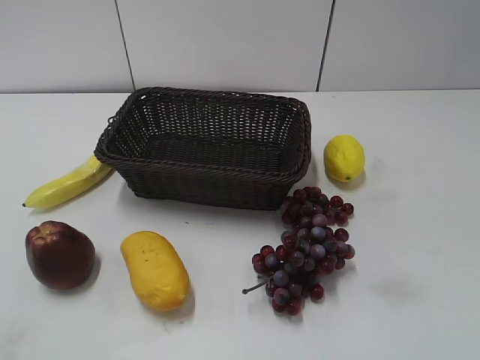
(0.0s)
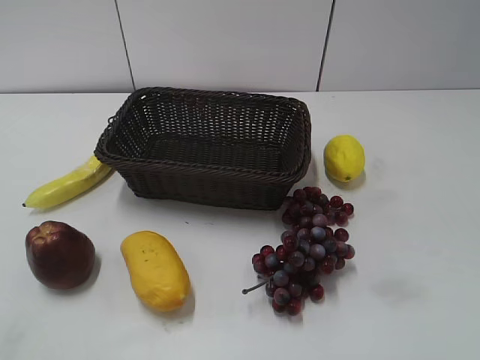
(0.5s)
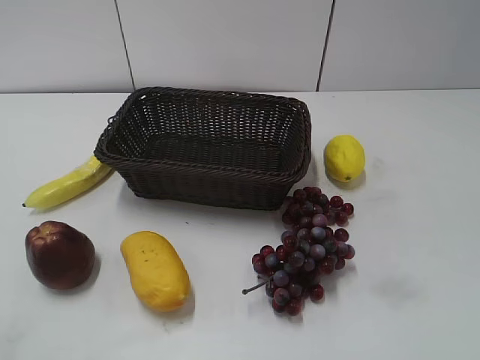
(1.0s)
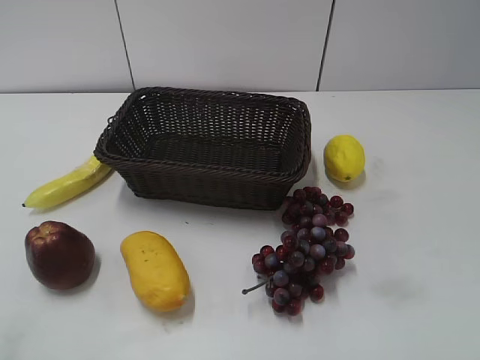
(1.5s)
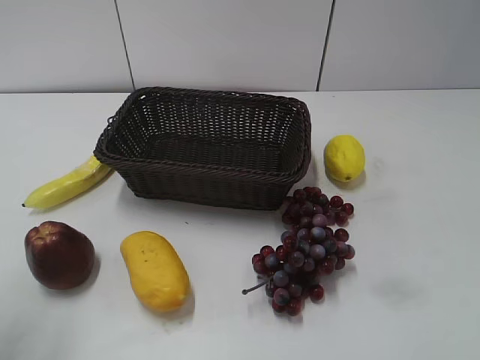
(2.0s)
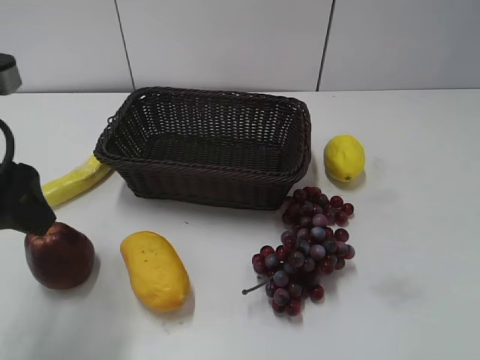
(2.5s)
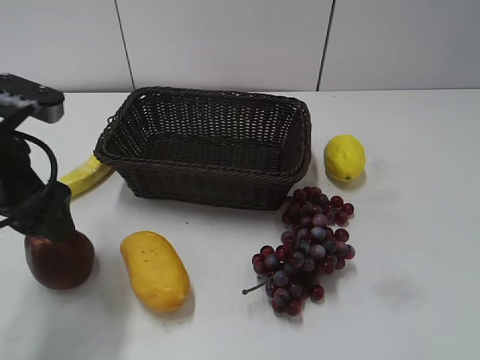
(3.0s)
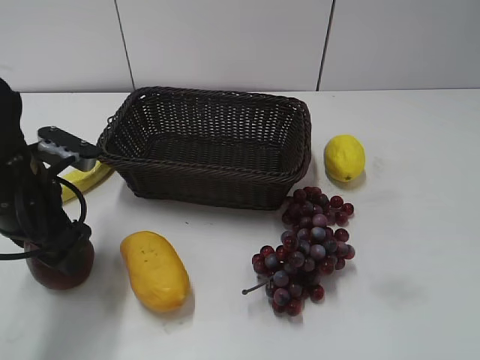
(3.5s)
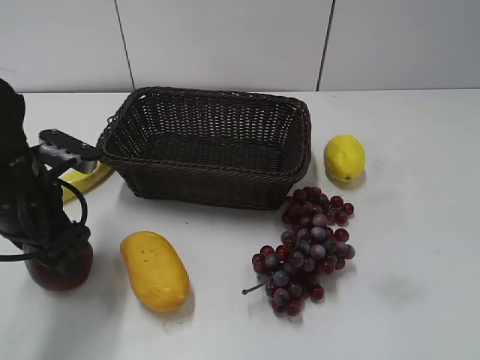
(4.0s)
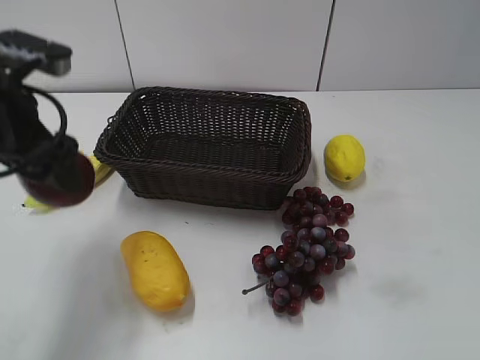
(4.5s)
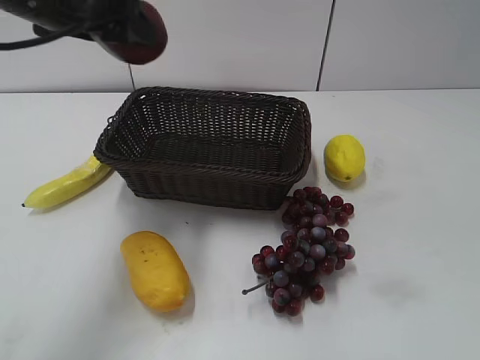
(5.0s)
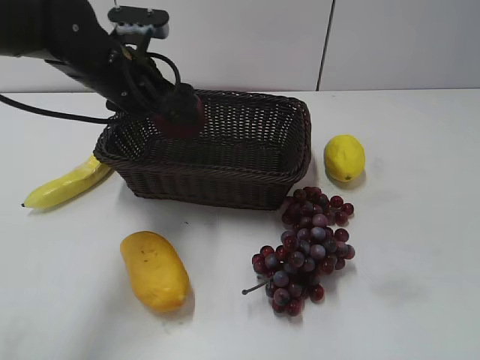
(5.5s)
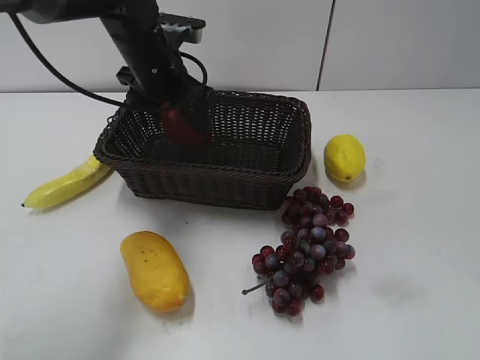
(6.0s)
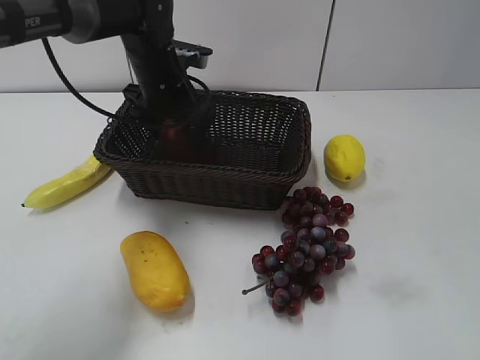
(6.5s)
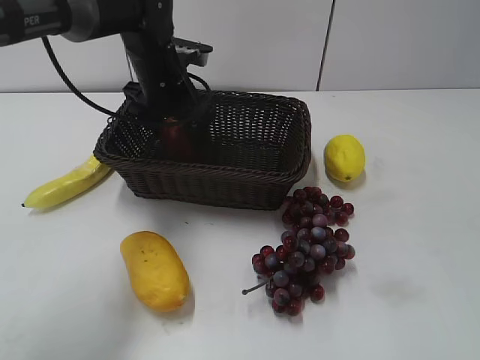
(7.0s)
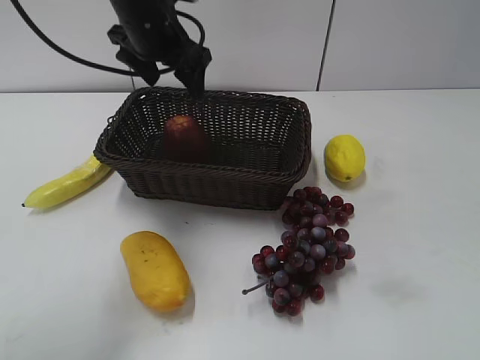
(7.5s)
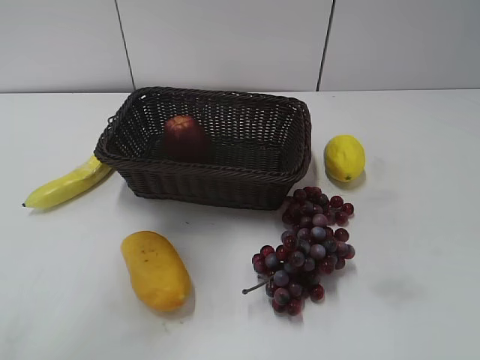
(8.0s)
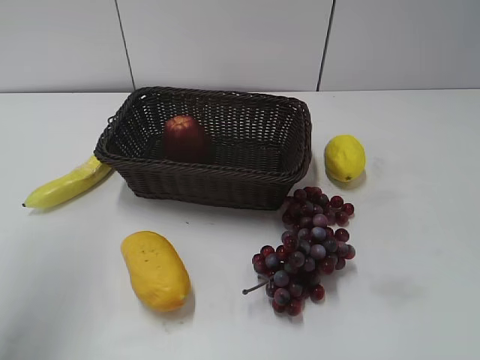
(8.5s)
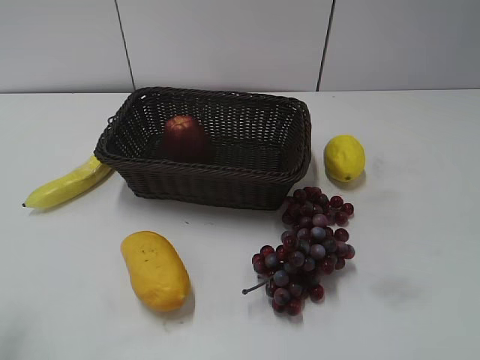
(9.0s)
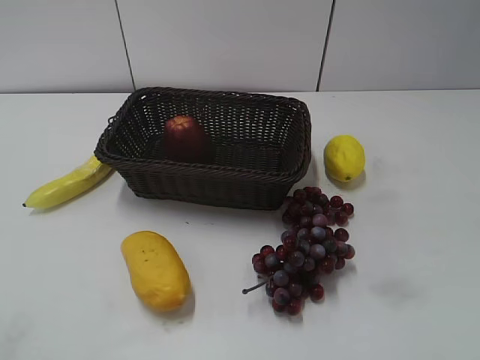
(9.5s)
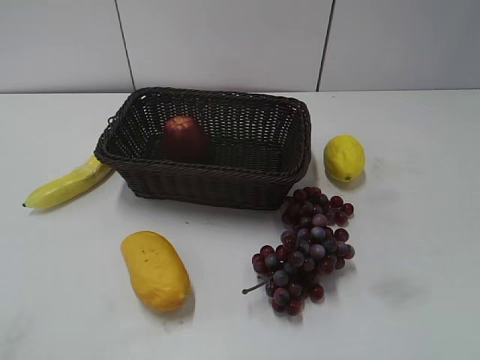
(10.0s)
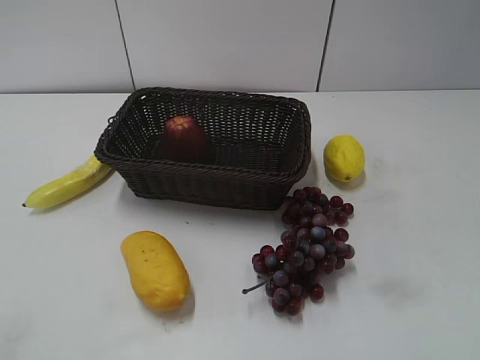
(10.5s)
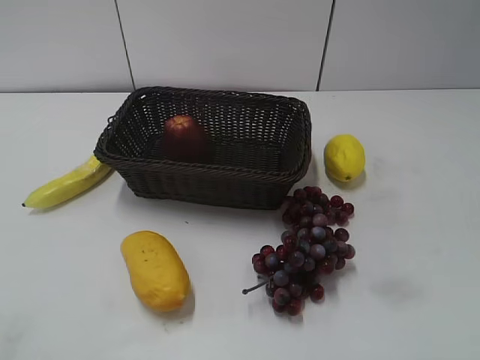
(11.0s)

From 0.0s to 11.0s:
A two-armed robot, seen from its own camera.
Step, from 2.5s to 3.5s: Grasp the apple with left gripper.
Step, from 4.0s to 6.5s: Place the apple in the basket with left gripper.
From 2.0s to 3.5s: The left gripper is displaced downward and forward by roughly 15 cm.
From 3.5s to 5.5s: The left gripper goes about 15 cm forward and to the right, and travels upward and back again, approximately 15 cm each way.
From 5.5s to 7.5s: The left gripper shifts about 10 cm upward.
From 7.5s to 9.0s: The left gripper goes approximately 40 cm backward and to the left.
